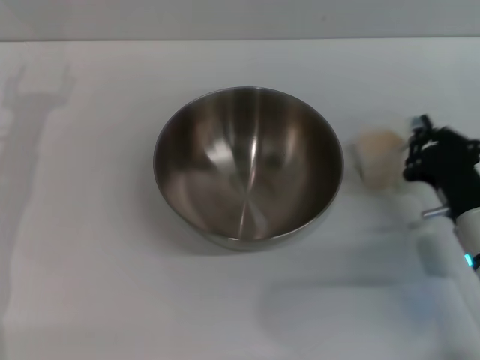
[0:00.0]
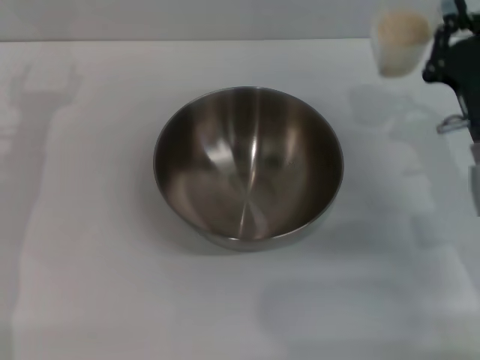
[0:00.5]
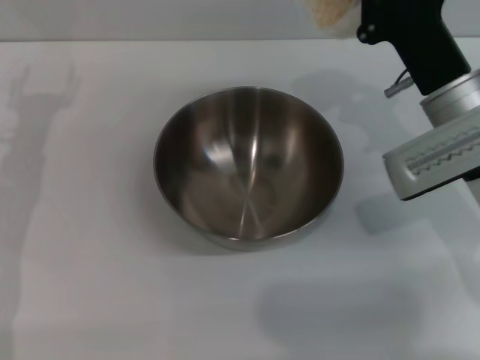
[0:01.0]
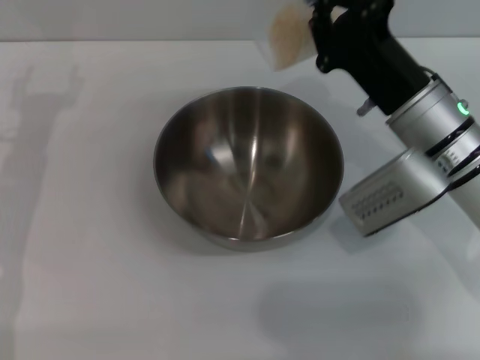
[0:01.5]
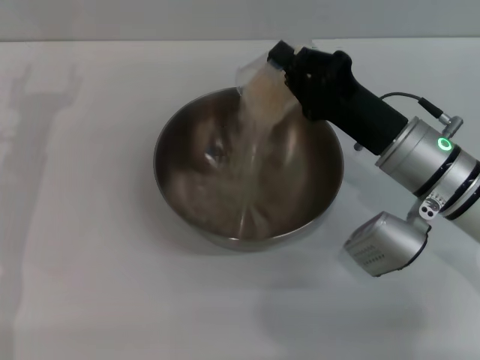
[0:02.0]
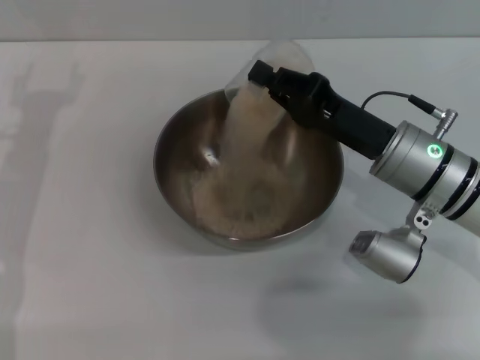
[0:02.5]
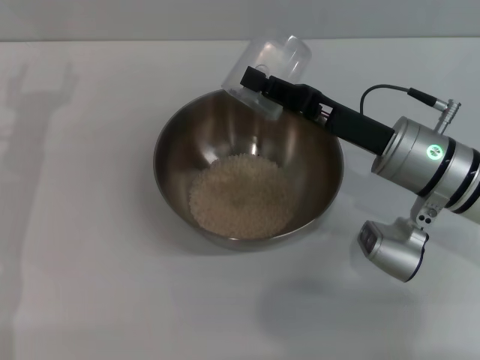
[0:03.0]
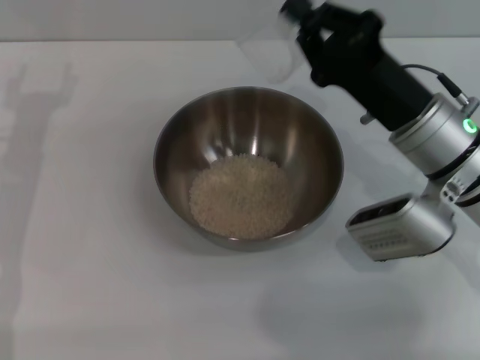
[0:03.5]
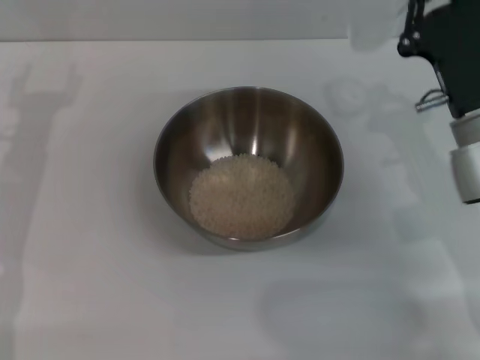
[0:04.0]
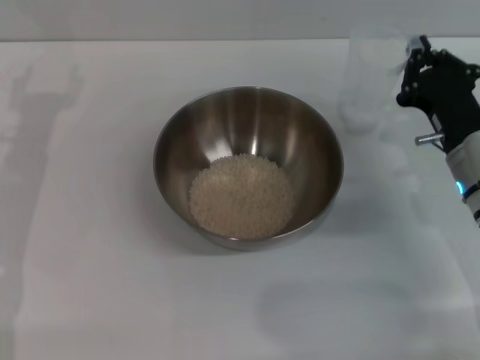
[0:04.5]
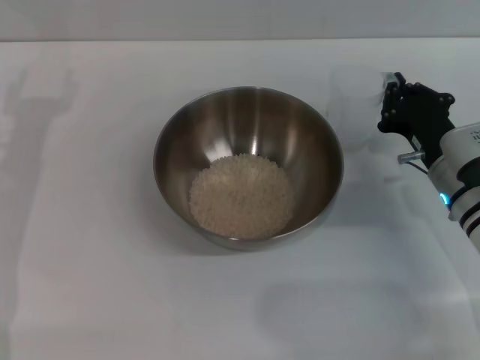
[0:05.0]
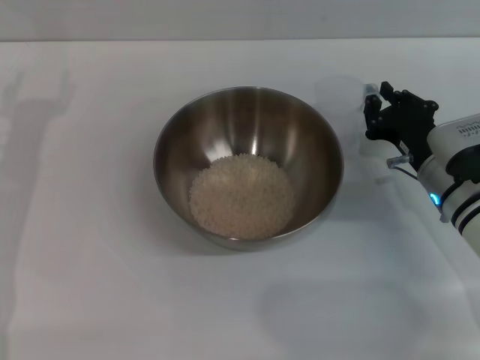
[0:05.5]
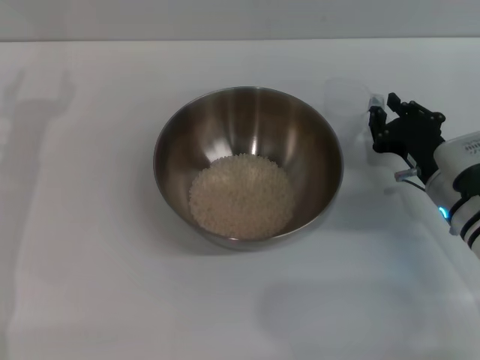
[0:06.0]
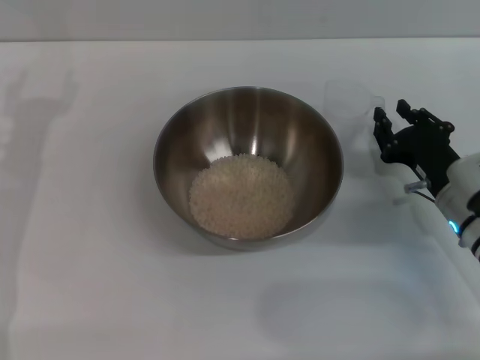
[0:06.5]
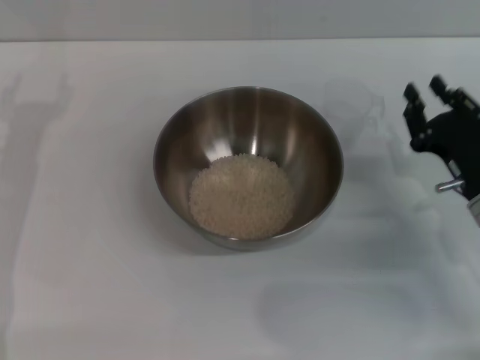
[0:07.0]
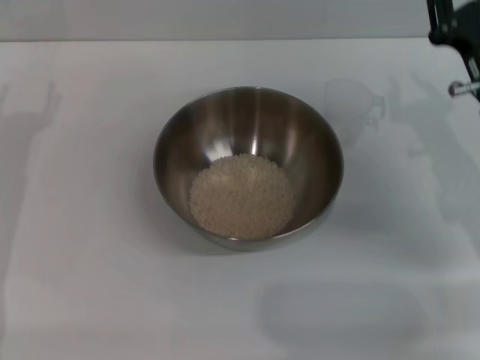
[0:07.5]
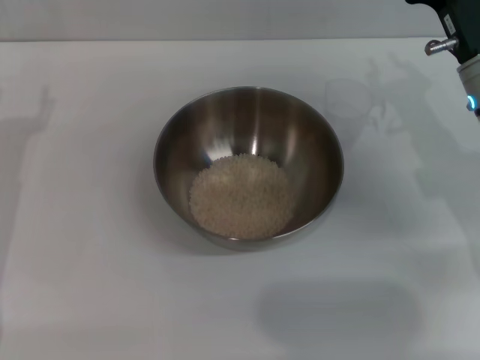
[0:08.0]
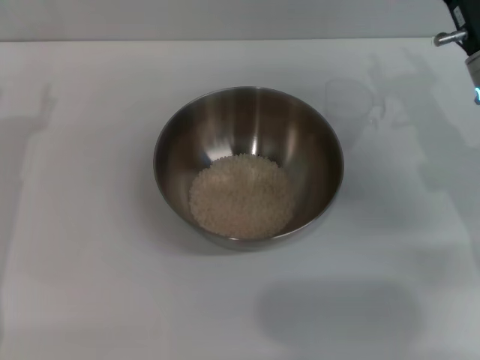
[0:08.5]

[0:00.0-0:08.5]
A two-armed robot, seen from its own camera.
Task of the whole recording: Place the bowl in the middle of the table with one hand and pour the rice from the grain cup into it with the other hand.
Step, 0:00.5 to 0:03.0: Pour the rice from the cup into the bowl with the right gripper.
Step, 0:03.5 to 0:06.5: Place the cup on the table with the right gripper.
0:00.0 to 0:02.0: The right gripper heads upward, forward and to the left, covering roughly 10 cm.
0:04.0 to 0:06.5: The right gripper heads downward, covering roughly 10 cm, and opens.
0:06.5 to 0:08.5: The right gripper moves upward and forward, roughly 15 cm.
